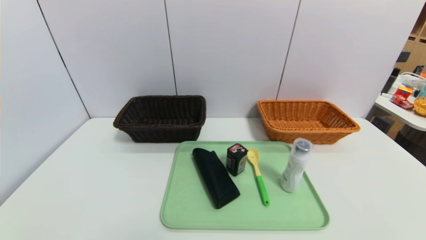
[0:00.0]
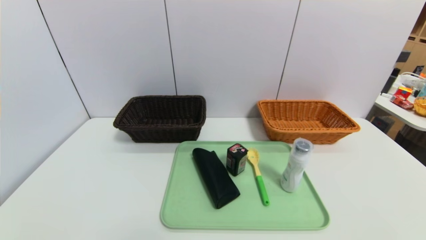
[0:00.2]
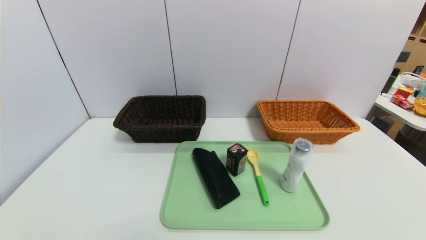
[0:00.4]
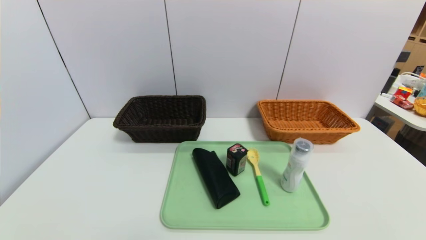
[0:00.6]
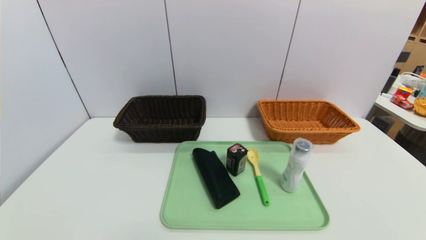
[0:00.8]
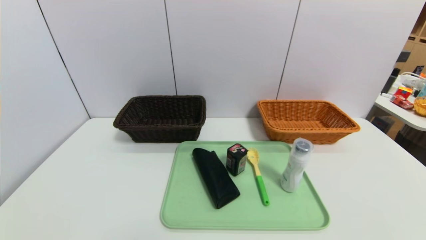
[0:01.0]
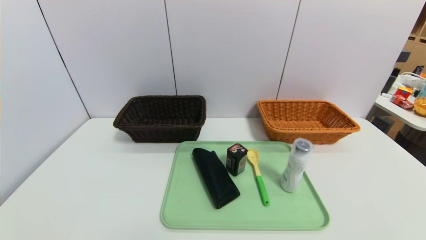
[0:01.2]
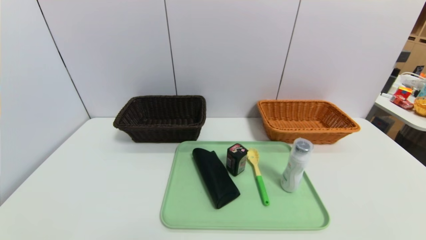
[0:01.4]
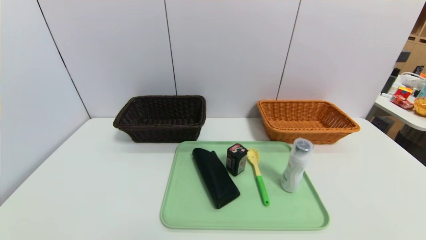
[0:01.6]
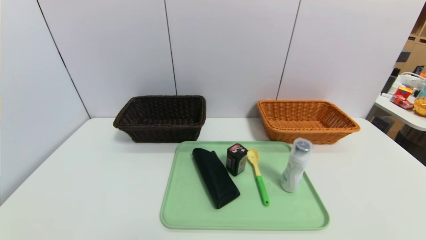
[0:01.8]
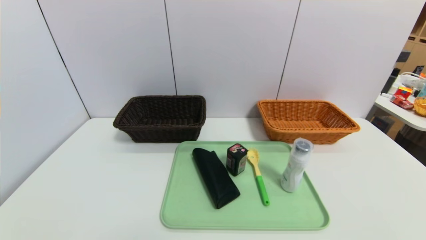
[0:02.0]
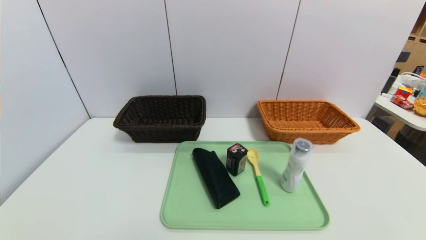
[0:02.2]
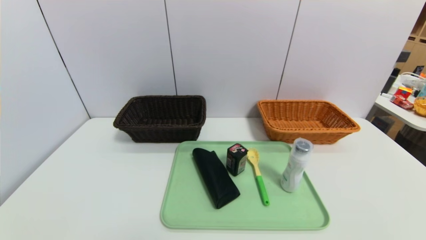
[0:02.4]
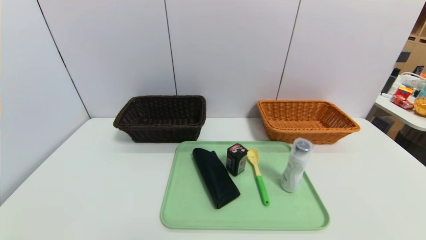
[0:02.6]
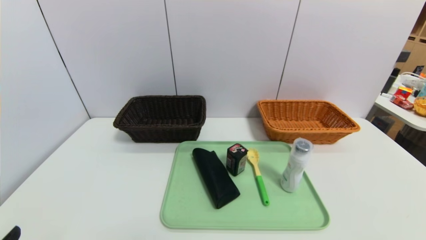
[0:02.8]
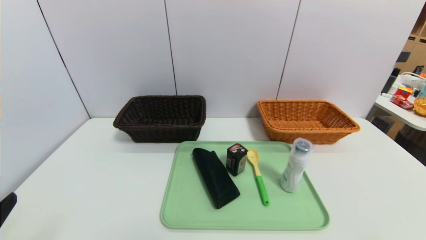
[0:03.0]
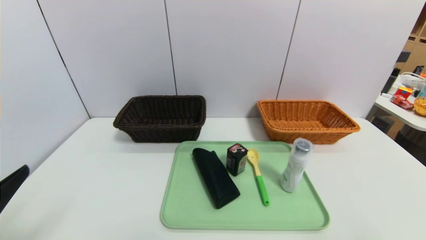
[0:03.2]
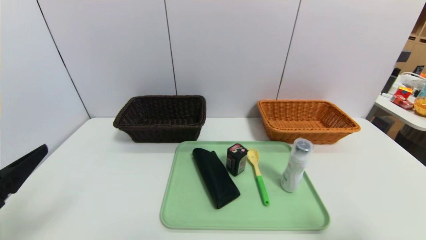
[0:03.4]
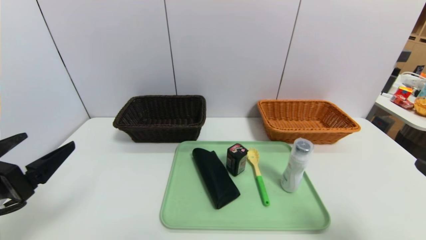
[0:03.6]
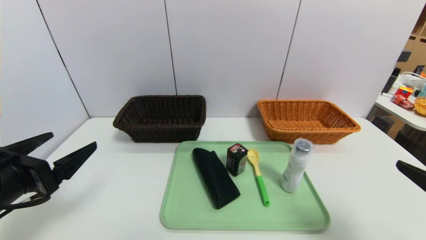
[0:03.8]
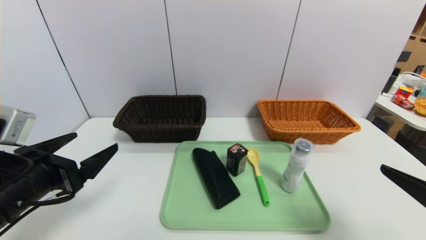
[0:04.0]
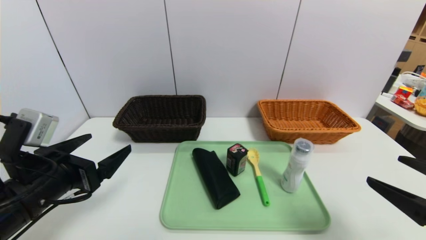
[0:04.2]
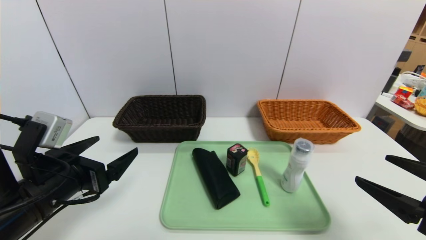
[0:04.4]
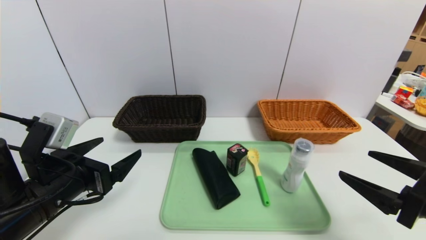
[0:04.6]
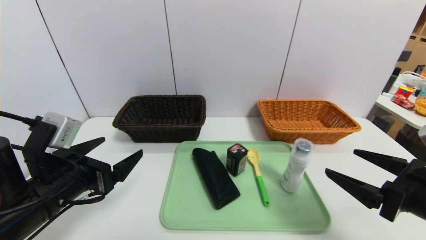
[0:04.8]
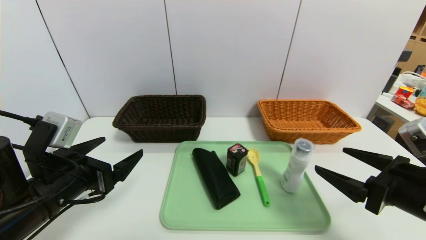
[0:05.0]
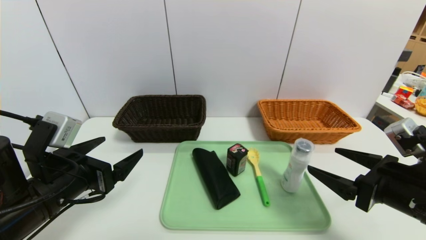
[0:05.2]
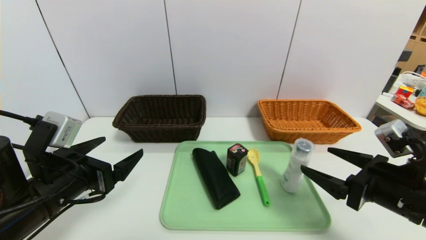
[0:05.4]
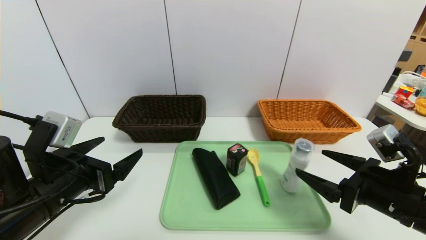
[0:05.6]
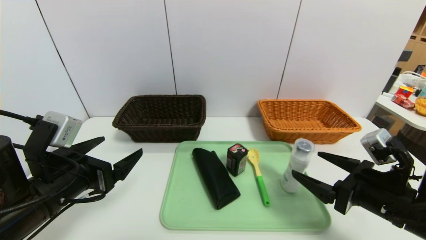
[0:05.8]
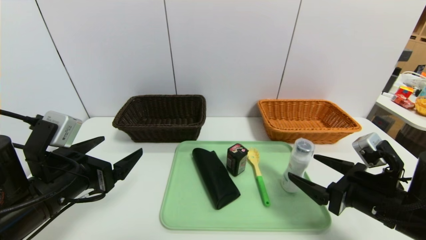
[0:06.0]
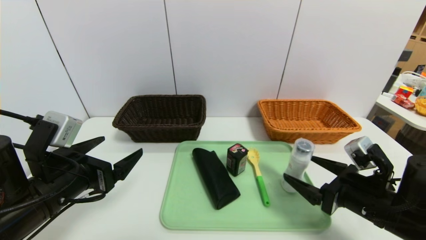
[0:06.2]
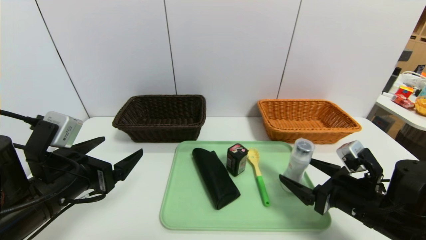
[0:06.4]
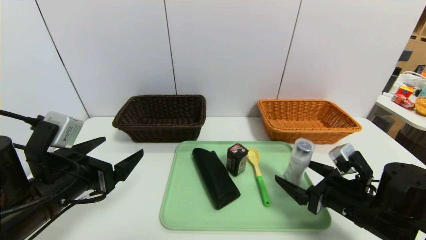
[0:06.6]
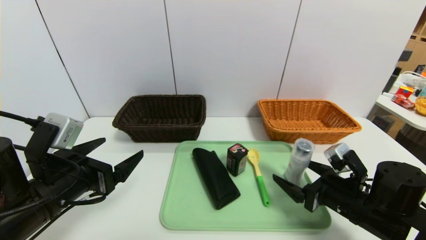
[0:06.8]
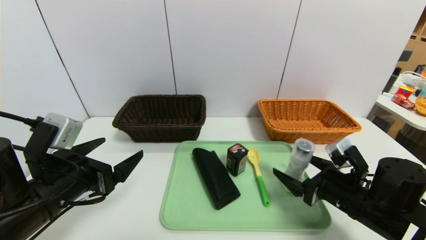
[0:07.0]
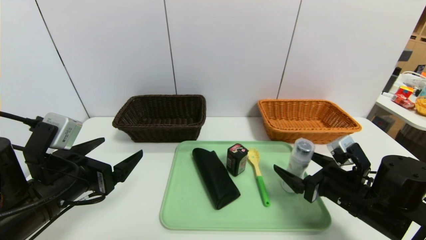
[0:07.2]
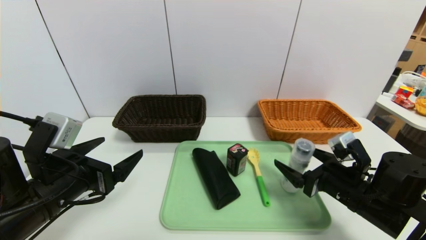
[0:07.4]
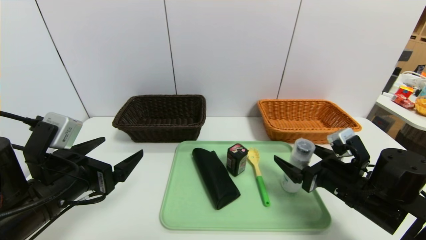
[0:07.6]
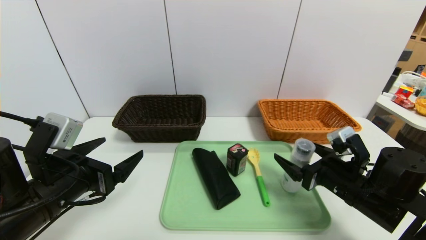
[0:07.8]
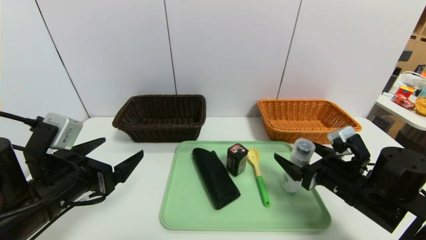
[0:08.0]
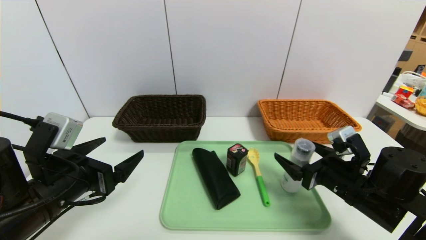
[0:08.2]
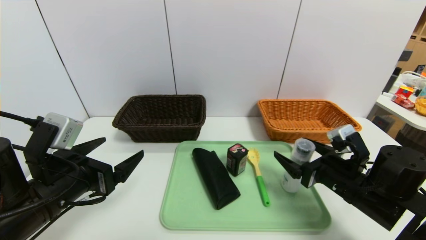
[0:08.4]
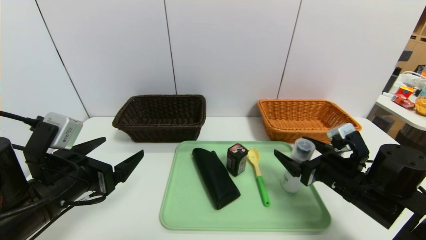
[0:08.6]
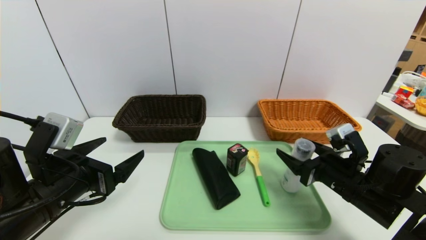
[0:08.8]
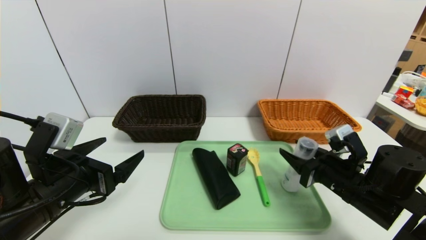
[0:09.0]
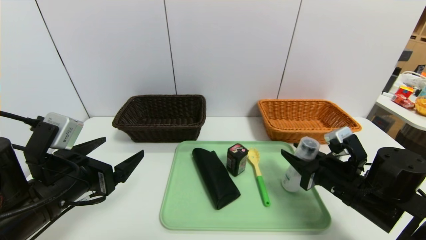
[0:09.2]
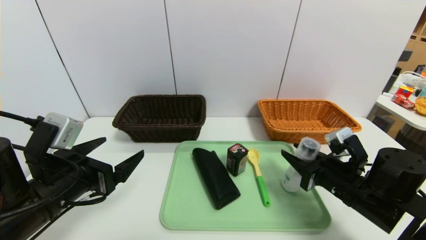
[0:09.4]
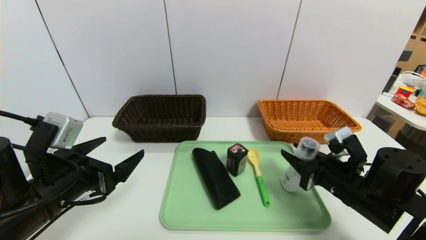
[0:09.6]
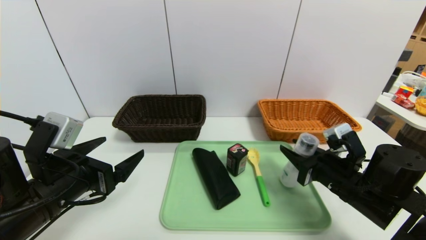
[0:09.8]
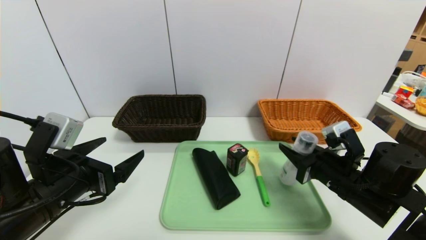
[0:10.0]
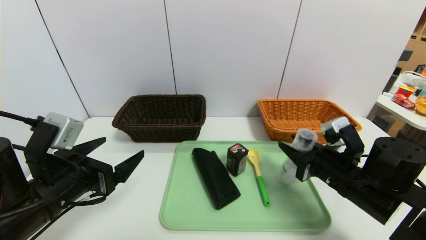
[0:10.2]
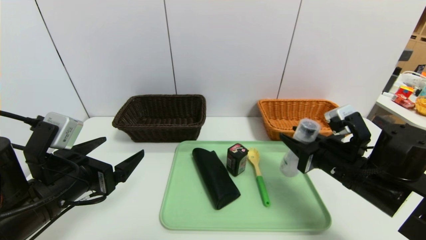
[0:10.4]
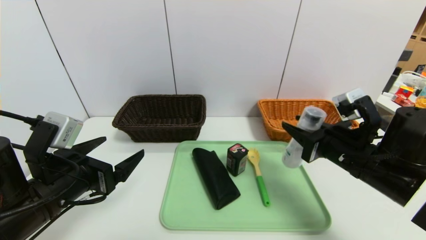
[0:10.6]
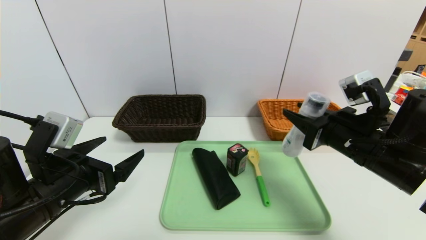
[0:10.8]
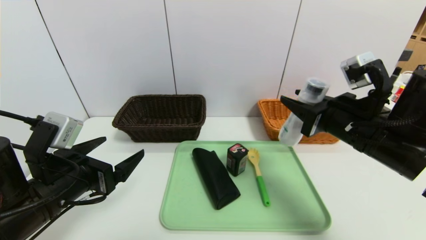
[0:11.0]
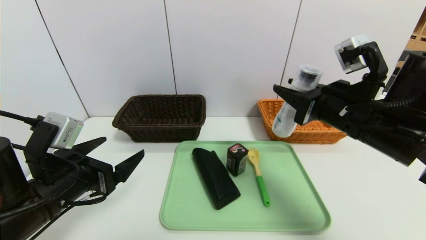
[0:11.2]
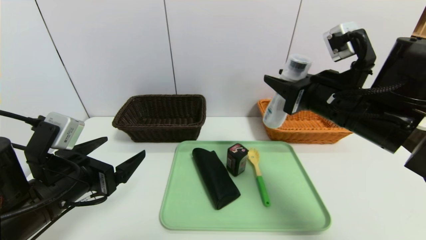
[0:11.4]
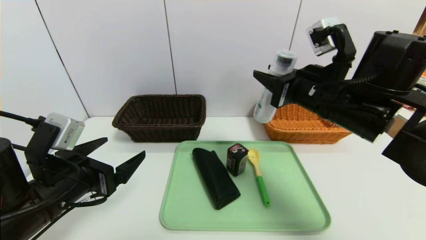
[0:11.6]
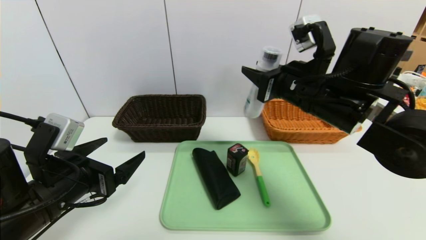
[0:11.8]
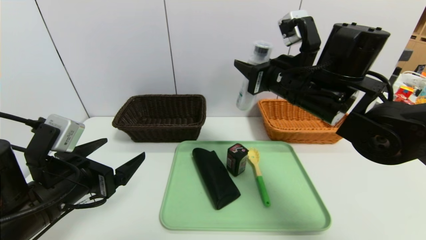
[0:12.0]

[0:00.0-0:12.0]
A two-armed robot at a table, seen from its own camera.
Task of the whole recording: place the food in the right basket with the right gripper, and place the non food items in the left basket with the left gripper.
0:00.0 to 0:01.6: The two grippers keep their place.
0:03.0 to 0:04.4: The left gripper heads forward and to the right, covering about 15 cm, while the right gripper is displaced forward by roughly 10 cm.
0:04.4 to 0:06.0: The right gripper shifts approximately 10 cm forward and downward.
0:06.0 to 0:07.6: The right gripper shifts by approximately 5 cm.
0:07.6 to 0:09.0: The right gripper closes.
0:09.0 to 0:10.4: There are only small adjustments of the grippers.
0:10.4 to 0:12.0: The right gripper is displaced upward, to the left and forward by roughly 15 cm.

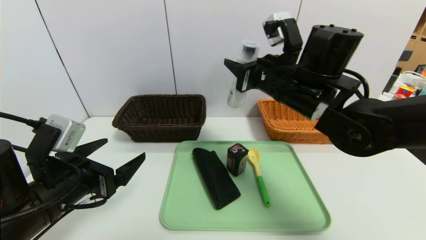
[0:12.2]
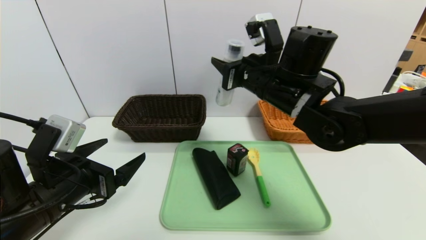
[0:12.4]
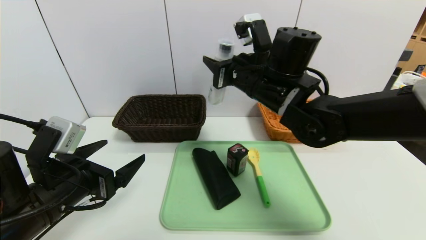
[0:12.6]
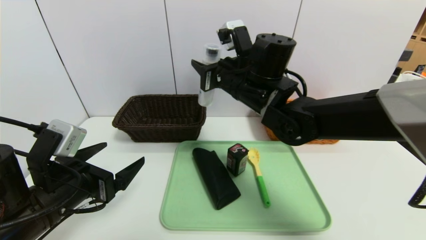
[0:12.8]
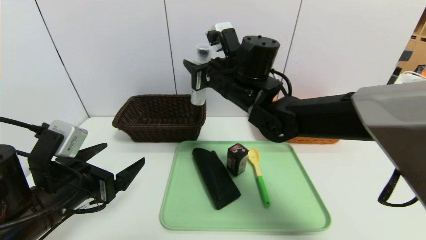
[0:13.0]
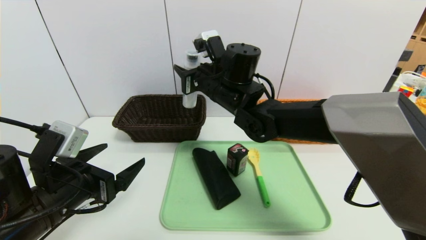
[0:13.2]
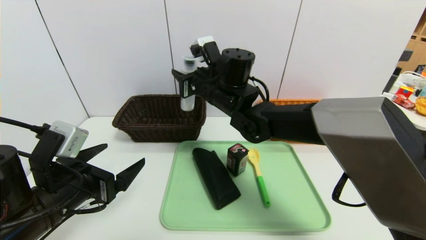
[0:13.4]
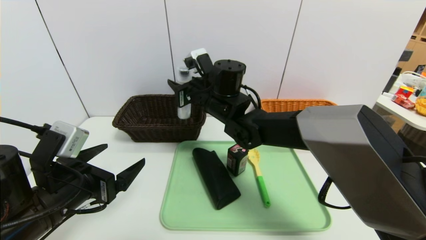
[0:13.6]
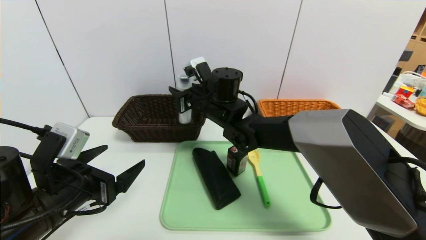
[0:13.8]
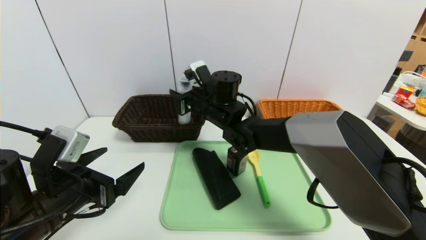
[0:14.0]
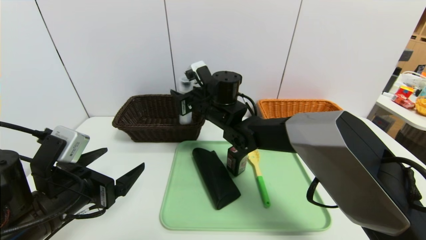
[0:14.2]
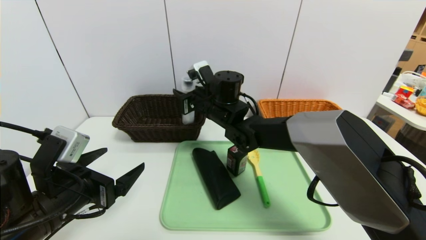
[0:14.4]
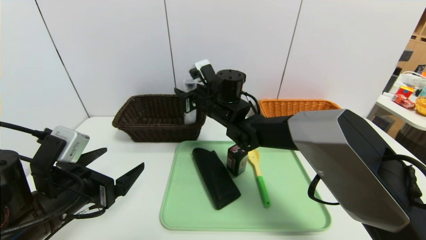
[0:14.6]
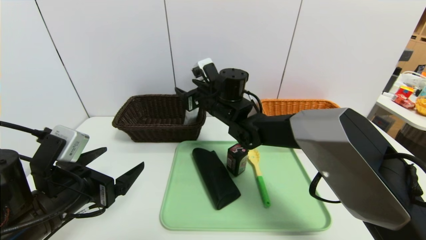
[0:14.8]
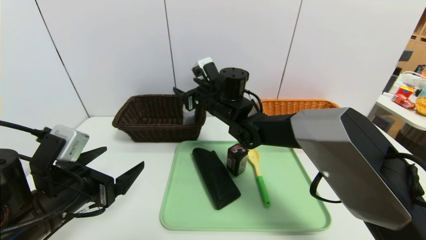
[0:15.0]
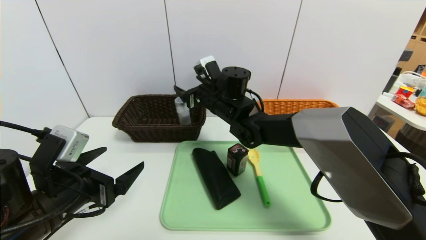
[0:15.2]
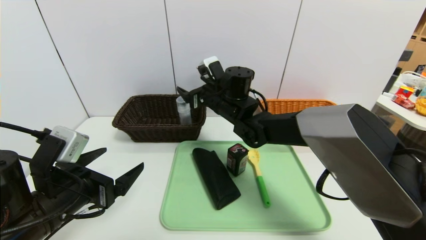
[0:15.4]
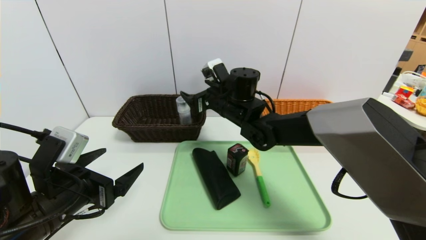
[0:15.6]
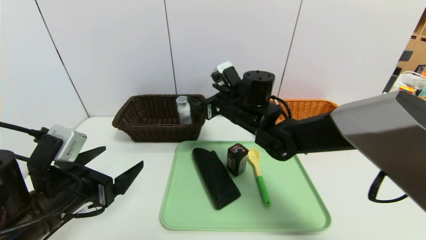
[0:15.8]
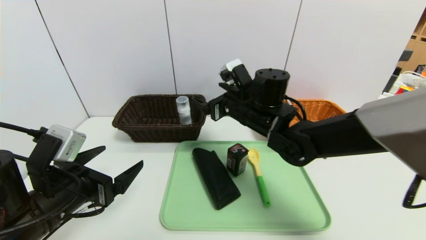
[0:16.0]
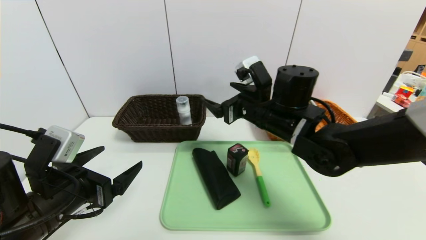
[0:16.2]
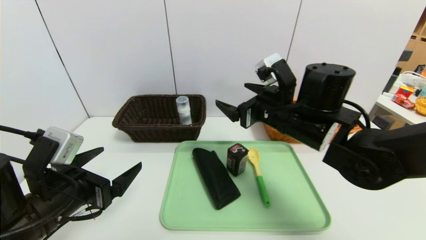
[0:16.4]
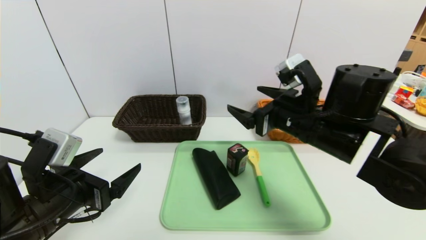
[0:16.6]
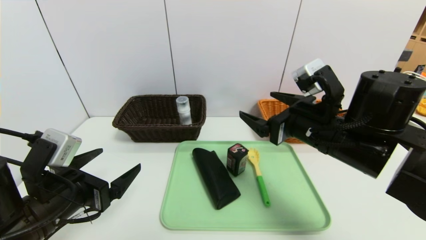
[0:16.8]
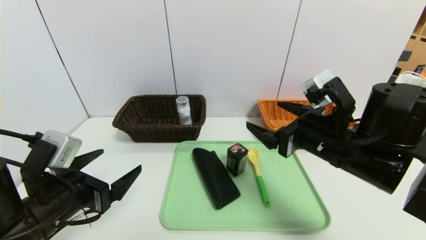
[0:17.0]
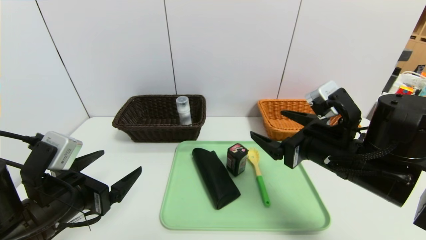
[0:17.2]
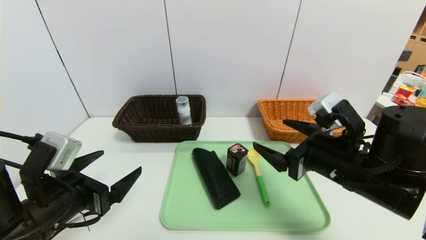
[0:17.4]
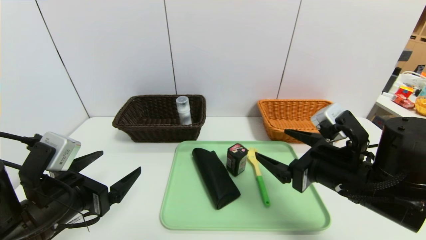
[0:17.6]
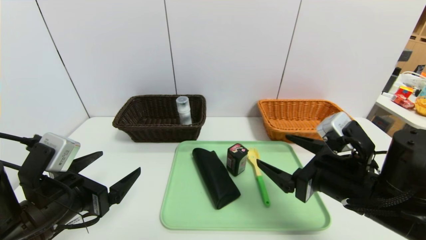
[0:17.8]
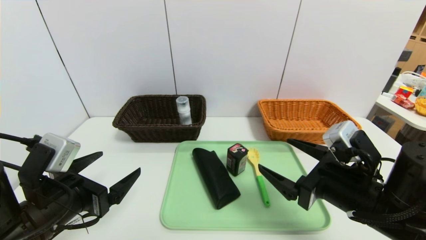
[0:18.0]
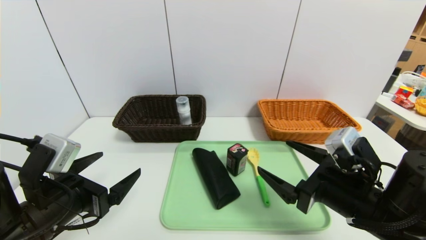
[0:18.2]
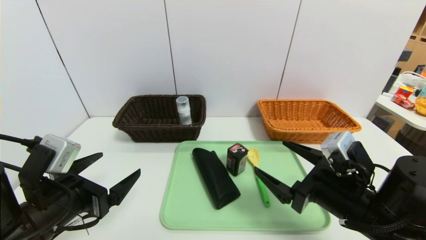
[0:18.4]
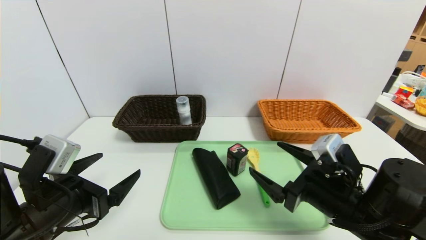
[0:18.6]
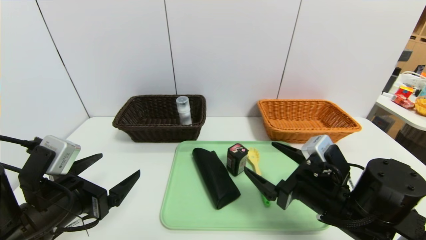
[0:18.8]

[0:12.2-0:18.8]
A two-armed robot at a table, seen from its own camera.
Task of the whole recording: place the food in the right basket with the right gripper, and place the non food items in the left basket with the left gripper.
0:12.2 to 0:13.8: The right gripper moves to the left, forward and downward, approximately 15 cm.
0:13.8 to 0:15.4: The right gripper opens.
0:15.4 to 0:17.2: The right gripper travels backward and to the right by about 25 cm.
0:17.2 to 0:18.8: The right gripper shifts about 10 cm downward.
